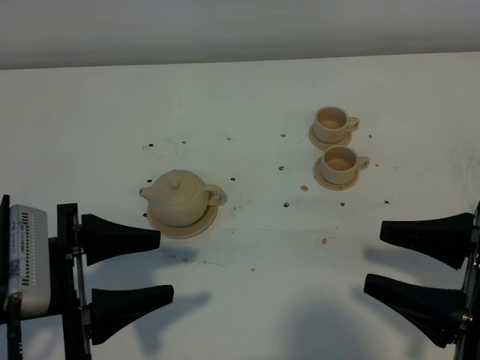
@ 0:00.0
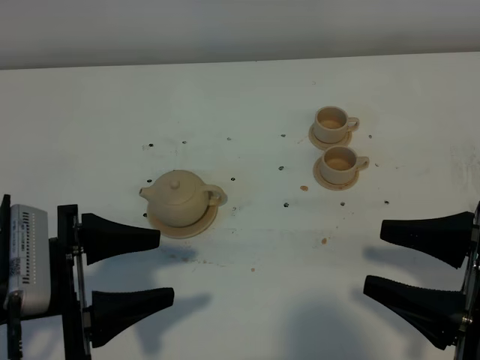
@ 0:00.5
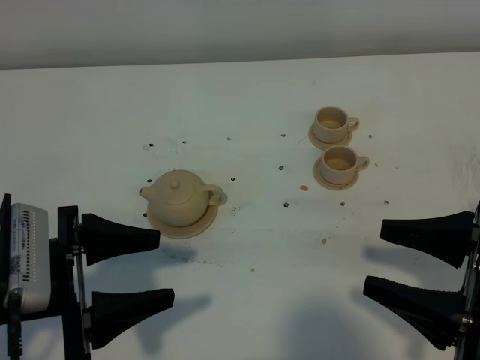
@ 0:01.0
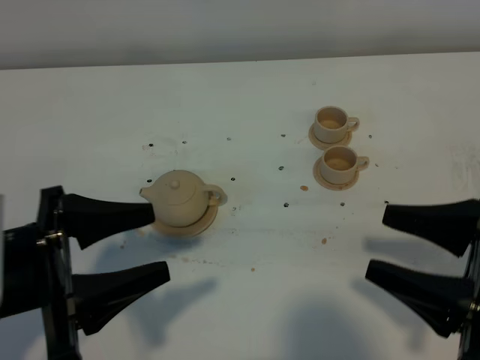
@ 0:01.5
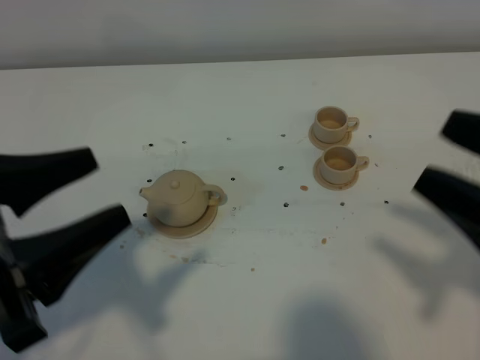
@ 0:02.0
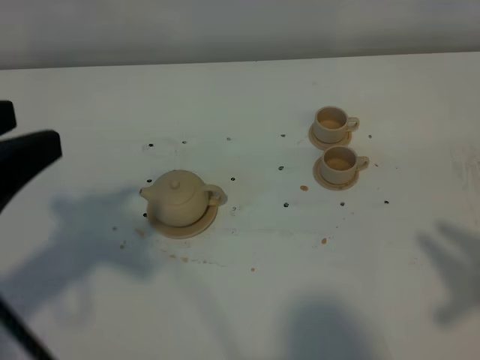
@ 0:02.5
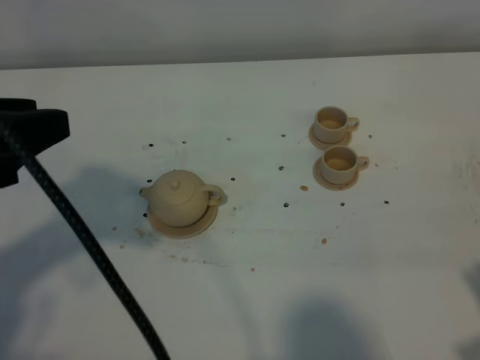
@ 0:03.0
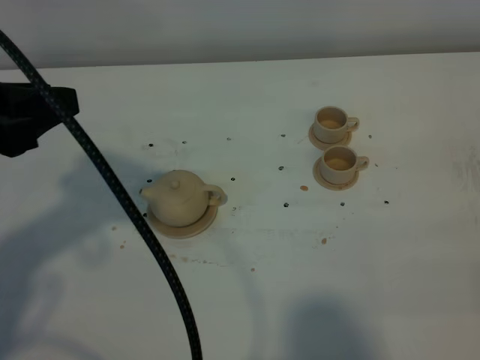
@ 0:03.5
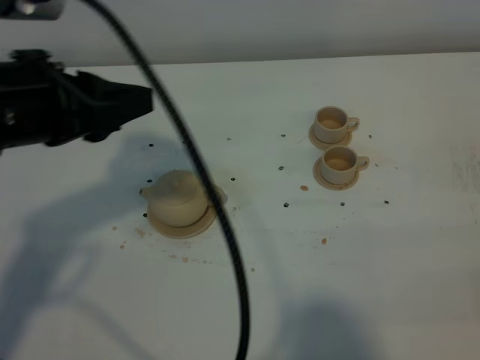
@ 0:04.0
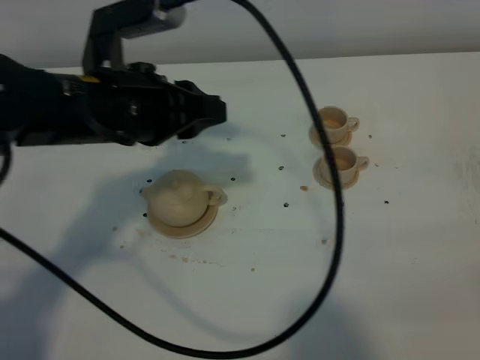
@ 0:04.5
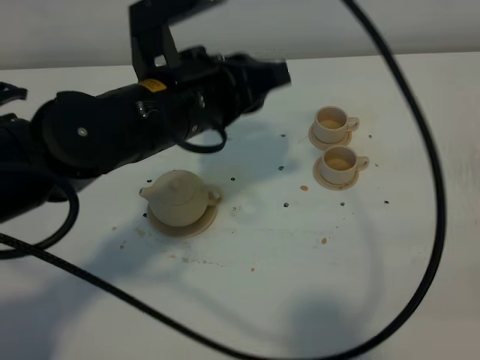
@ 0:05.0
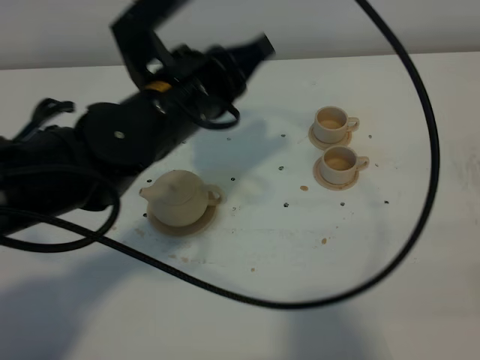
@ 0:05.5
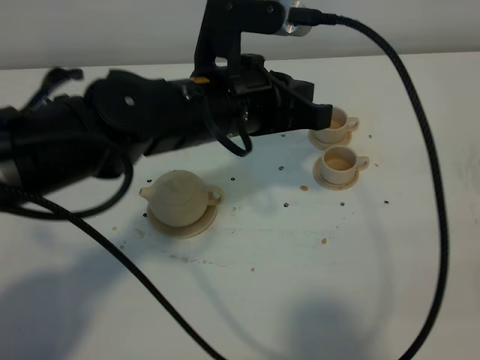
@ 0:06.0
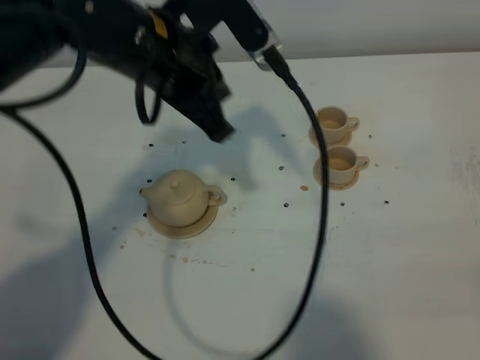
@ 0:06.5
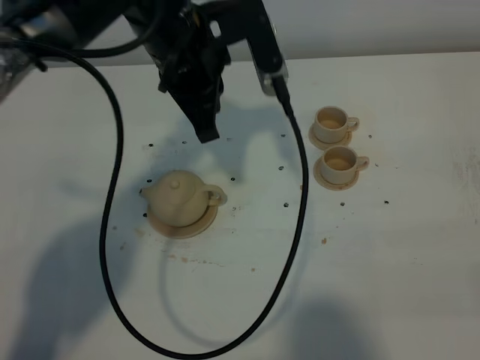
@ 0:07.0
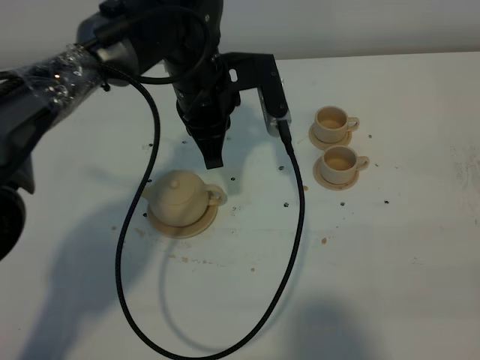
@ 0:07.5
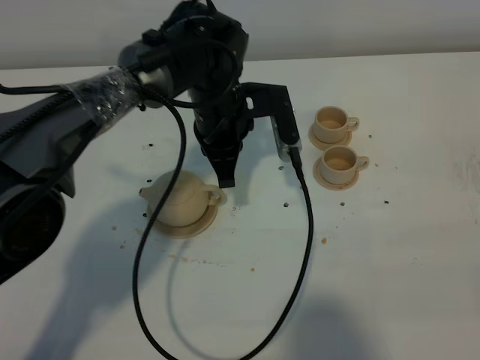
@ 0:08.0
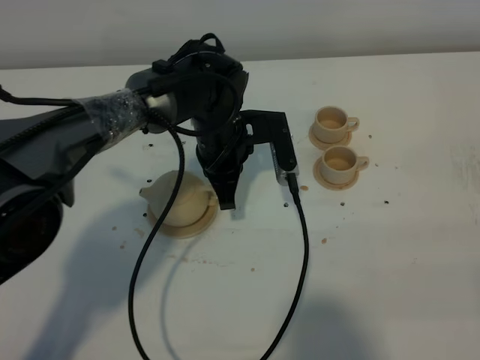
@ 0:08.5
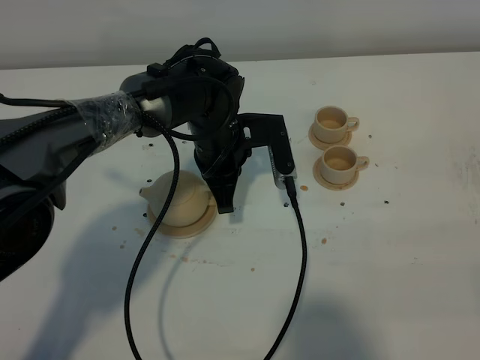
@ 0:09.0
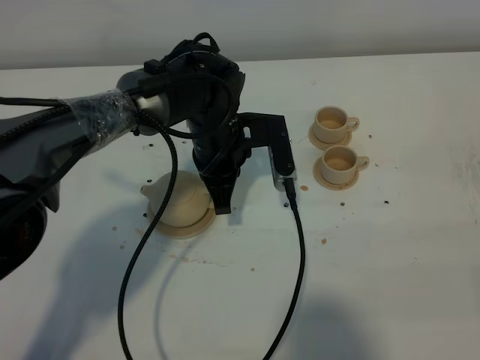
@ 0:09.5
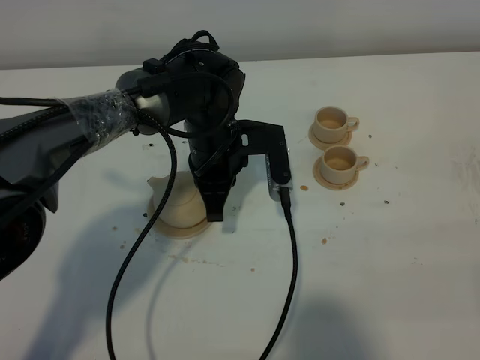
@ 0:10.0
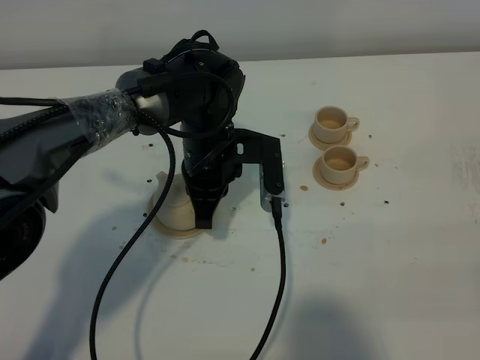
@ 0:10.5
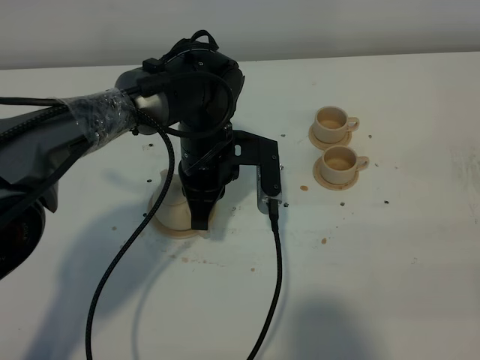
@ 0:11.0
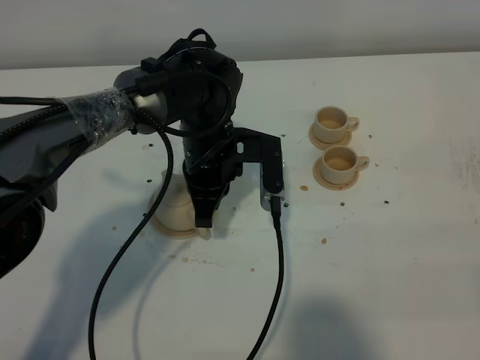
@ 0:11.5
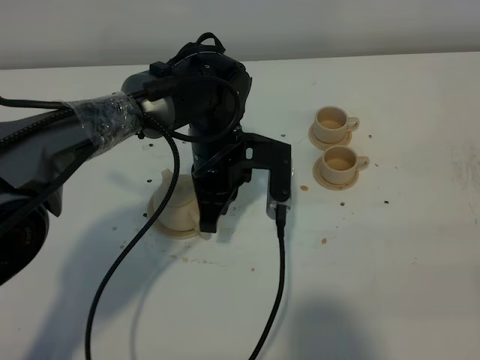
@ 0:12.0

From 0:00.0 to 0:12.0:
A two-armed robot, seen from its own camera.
Task of the whole recording: grasp the brown teapot and pour the tea into the two brown teacups one by one, put the brown teapot back in its original place.
From 0:00.0 to 0:02.0: The two grippers go some 10 cm upward.
From 0:02.0 to 0:04.0: The left gripper shifts approximately 10 cm forward, and closes up. Meanwhile the right gripper heads backward, downward and to the right, covering roughly 15 cm, and closes up.
From 0:04.0 to 0:06.0: The left gripper goes approximately 15 cm to the right, and closes its fingers.
From 0:06.0 to 0:08.0: The left gripper goes about 15 cm forward and downward.
From 0:08.0 to 0:12.0: The grippers make only small movements.

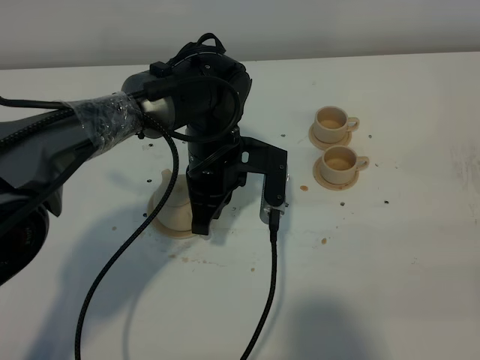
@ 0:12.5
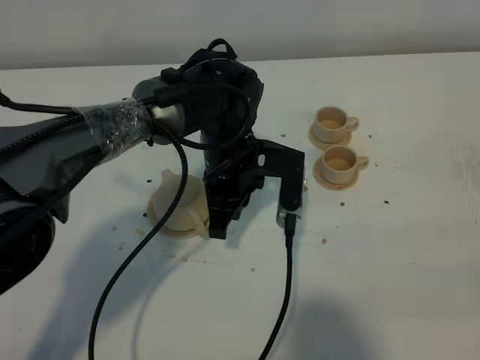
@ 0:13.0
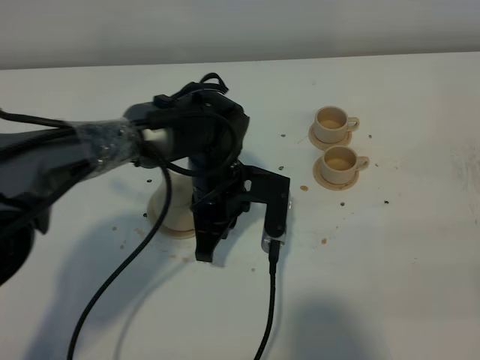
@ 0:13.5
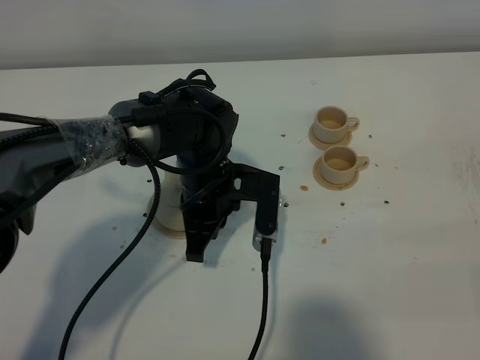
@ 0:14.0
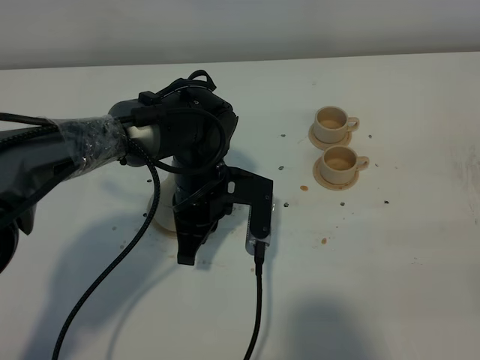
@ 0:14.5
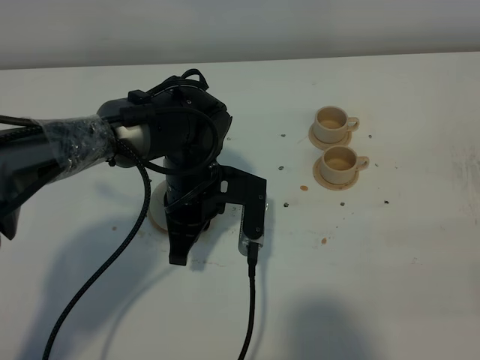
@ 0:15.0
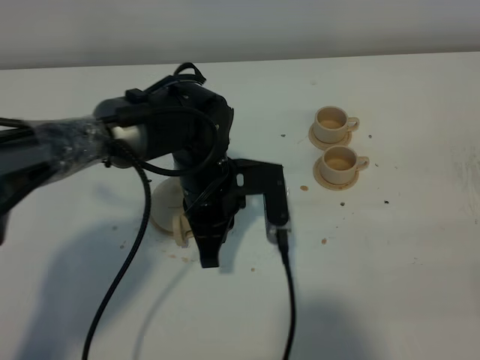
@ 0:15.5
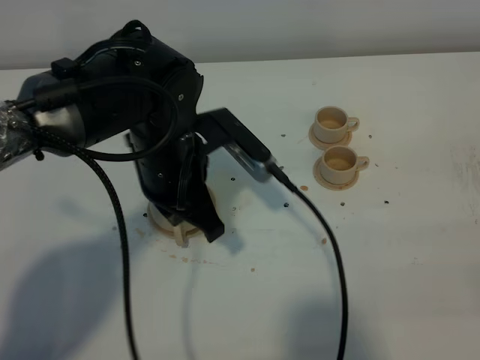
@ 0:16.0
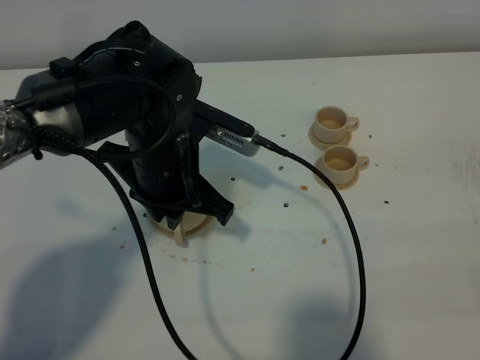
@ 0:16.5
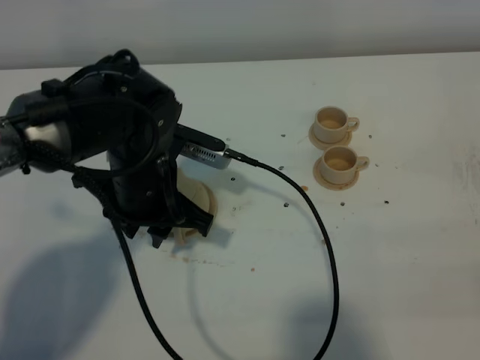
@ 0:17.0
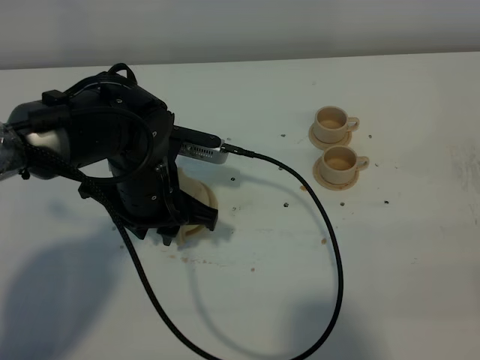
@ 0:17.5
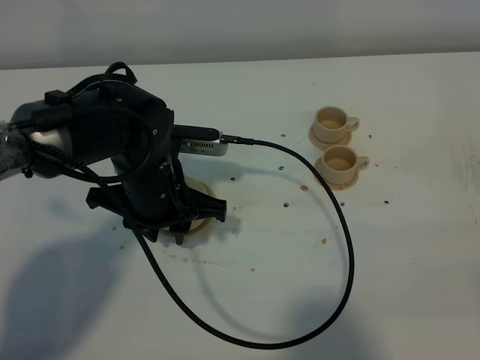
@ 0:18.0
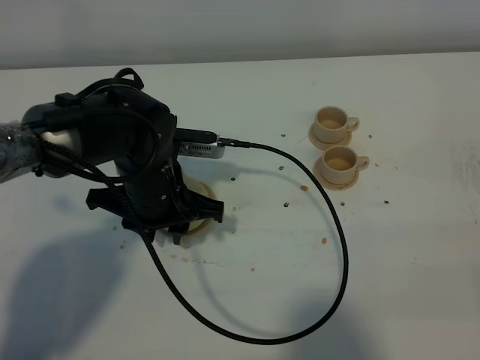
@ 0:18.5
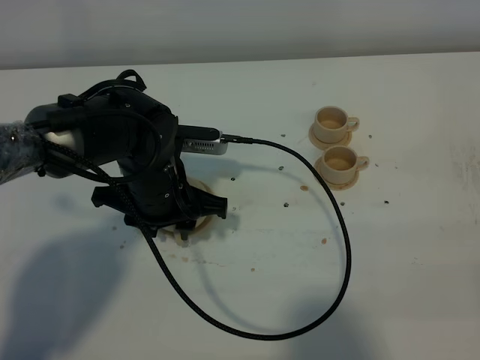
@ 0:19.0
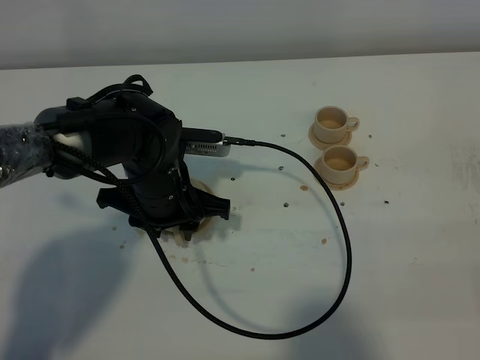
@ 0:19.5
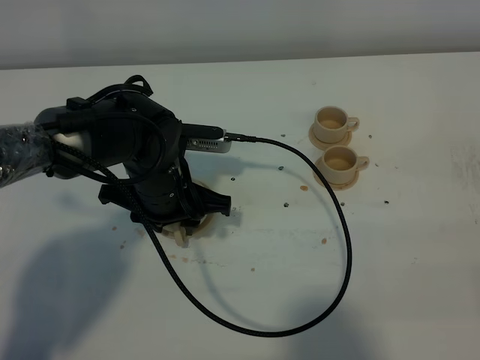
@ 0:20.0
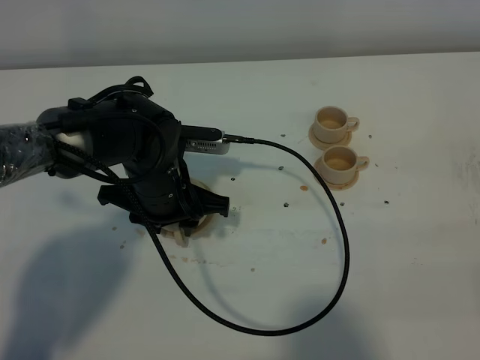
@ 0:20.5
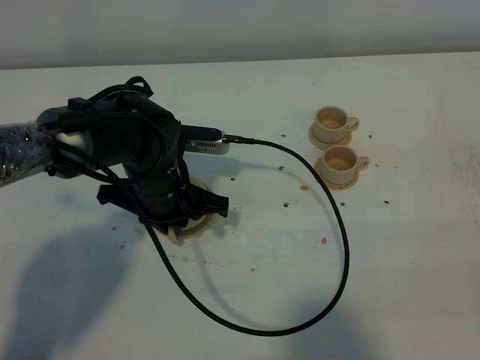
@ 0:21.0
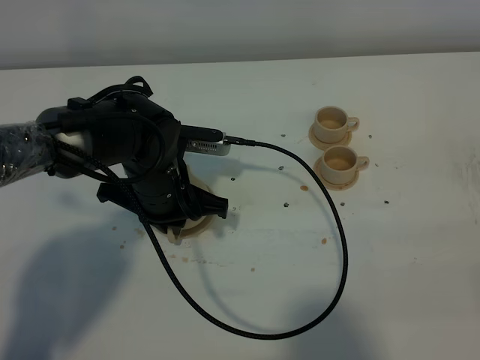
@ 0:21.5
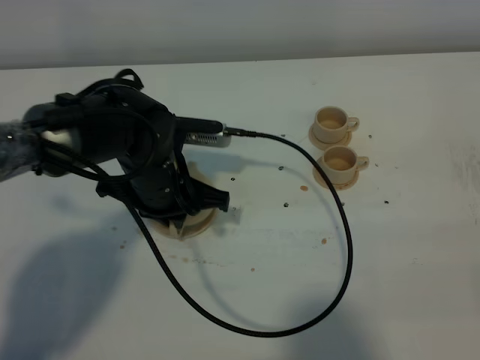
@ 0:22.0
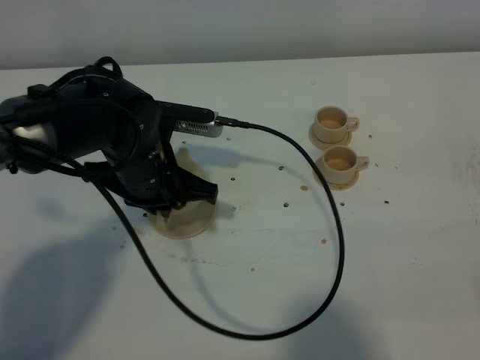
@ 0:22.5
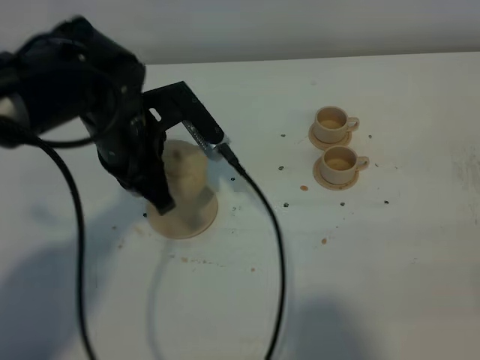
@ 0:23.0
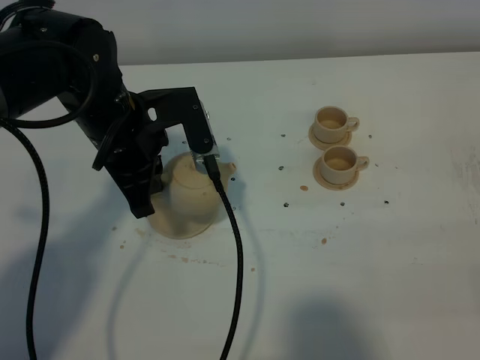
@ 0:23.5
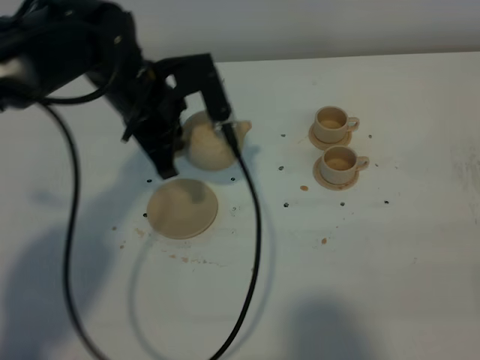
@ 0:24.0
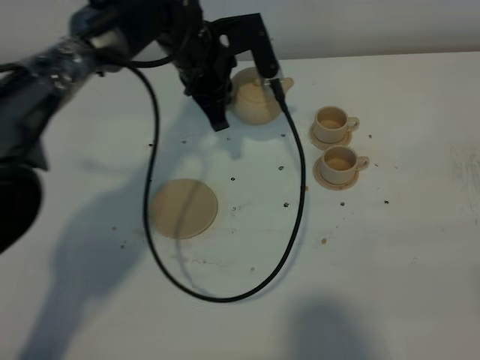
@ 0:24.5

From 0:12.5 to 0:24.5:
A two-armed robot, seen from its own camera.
Task of the whole recording: grasp the brown teapot and pour the tea into the two brown teacups one by one, put the brown teapot back in its original place.
Step, from 0:12.5 to 0:22.0: Pick up the teapot with the left gripper.
From 0:12.5 to 0:14.5: The grippers stay close to where they were, moving slightly.
From 0:14.5 to 0:16.5: The left gripper shifts approximately 10 cm upward.
From 0:16.5 to 0:18.5: The left gripper is displaced downward by roughly 5 cm.
From 0:18.5 to 0:20.5: The grippers make only small movements.
From 0:20.5 to 0:22.5: The left gripper closes up.
From 0:22.5 to 0:24.5: The left gripper is displaced forward and to the right by roughly 15 cm.

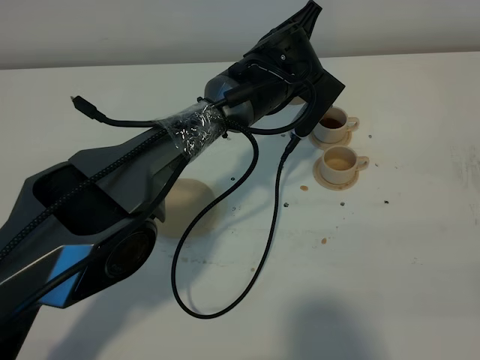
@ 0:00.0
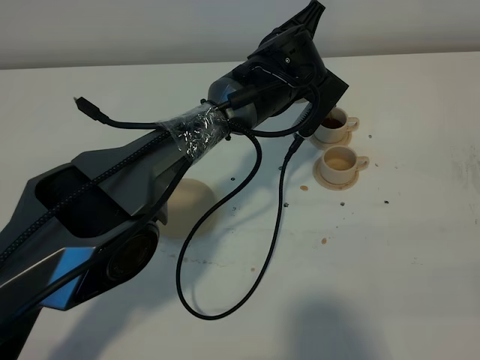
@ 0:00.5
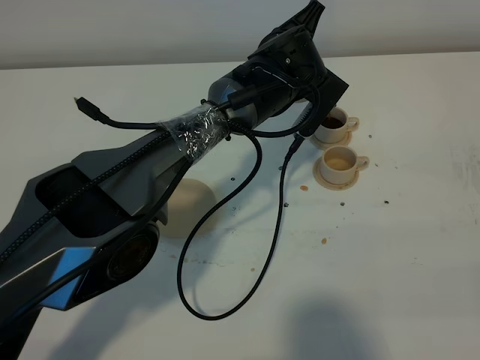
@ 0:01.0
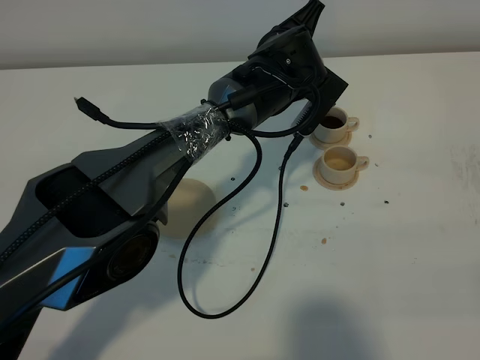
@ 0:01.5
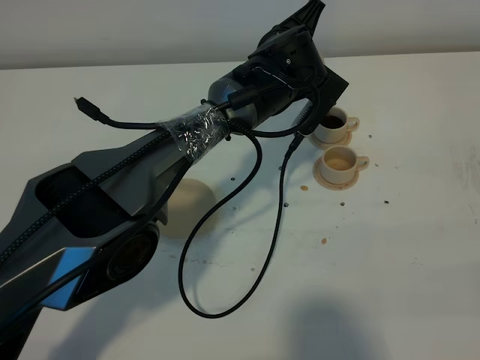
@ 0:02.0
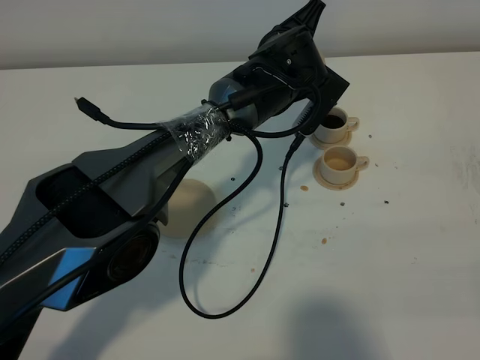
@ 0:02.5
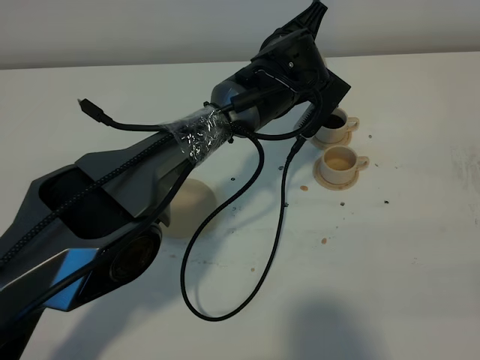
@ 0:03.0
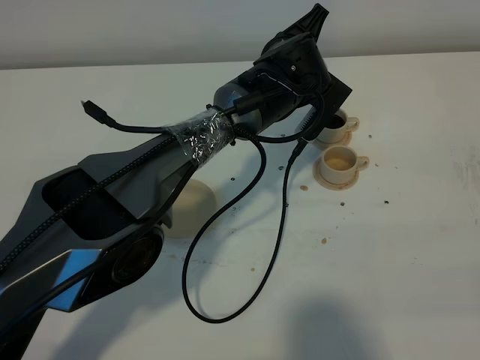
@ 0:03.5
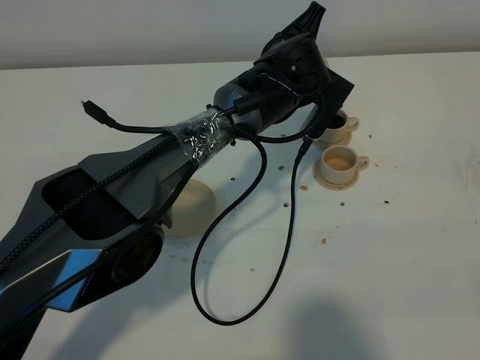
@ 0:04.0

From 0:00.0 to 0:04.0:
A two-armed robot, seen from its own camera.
Task of the whole recording: grasp the brown teapot and pour the tea into the two brown teacups one by one, put the brown teapot back in its original place.
From 0:00.0 to 0:02.0: Both grippers stay about where they are.
From 0:02.0 to 0:04.0: Neither gripper changes place.
